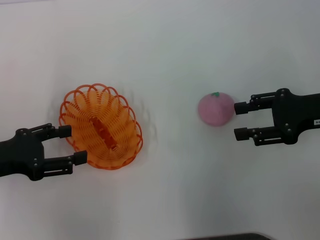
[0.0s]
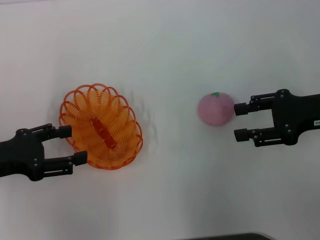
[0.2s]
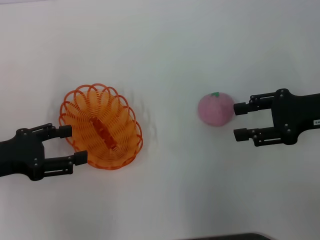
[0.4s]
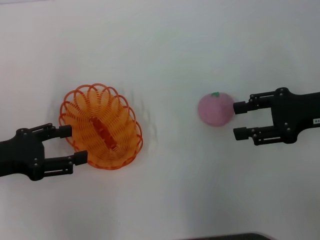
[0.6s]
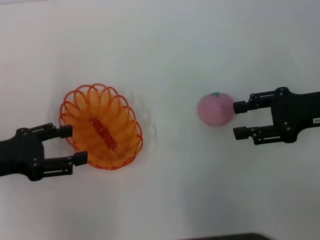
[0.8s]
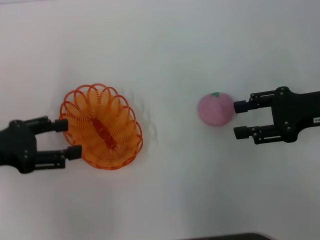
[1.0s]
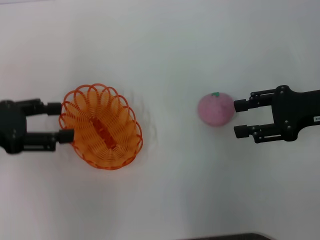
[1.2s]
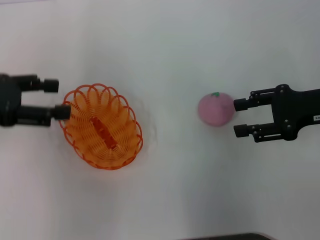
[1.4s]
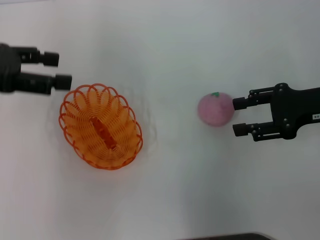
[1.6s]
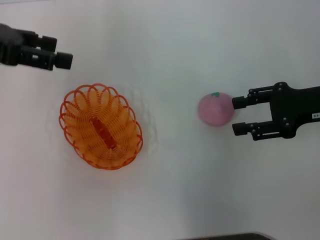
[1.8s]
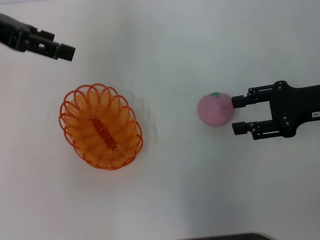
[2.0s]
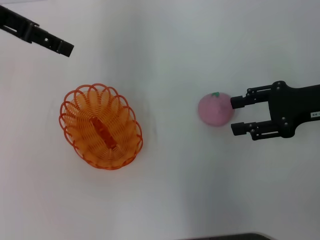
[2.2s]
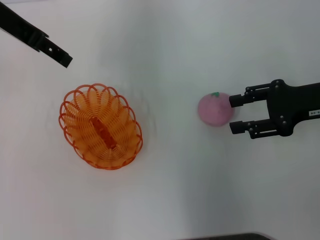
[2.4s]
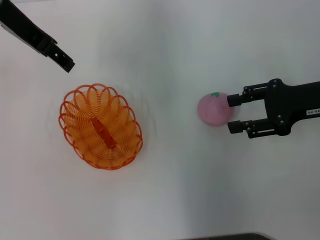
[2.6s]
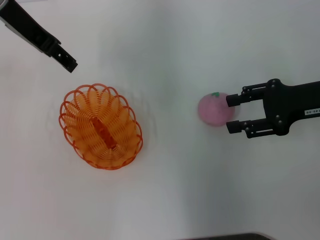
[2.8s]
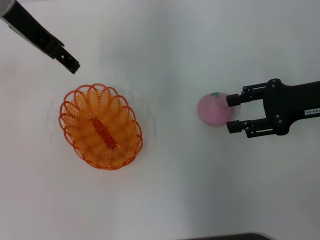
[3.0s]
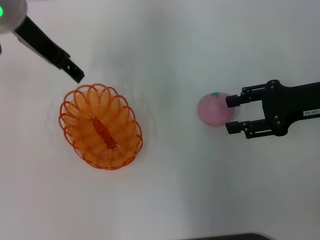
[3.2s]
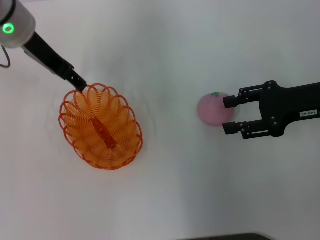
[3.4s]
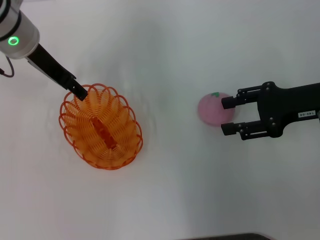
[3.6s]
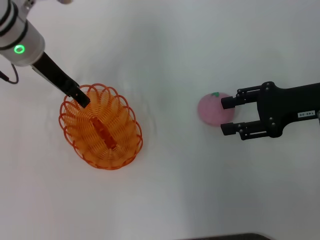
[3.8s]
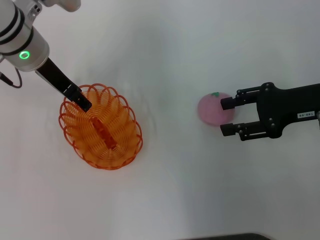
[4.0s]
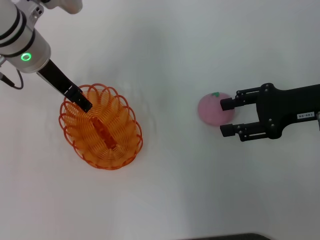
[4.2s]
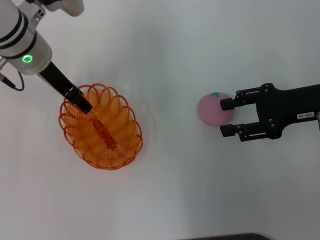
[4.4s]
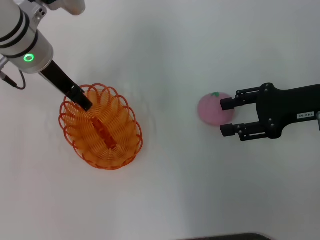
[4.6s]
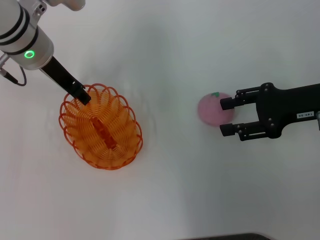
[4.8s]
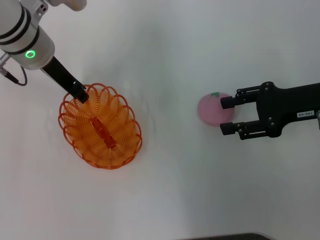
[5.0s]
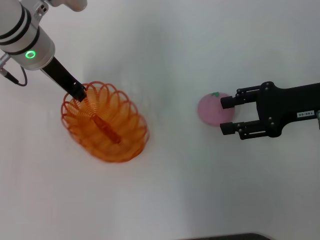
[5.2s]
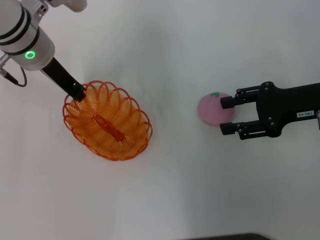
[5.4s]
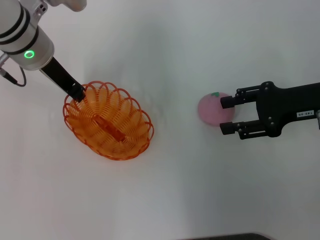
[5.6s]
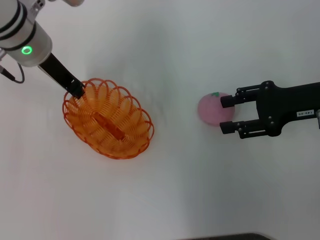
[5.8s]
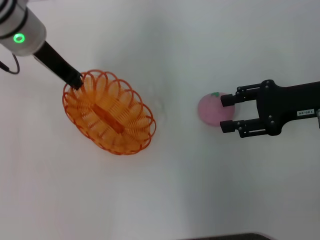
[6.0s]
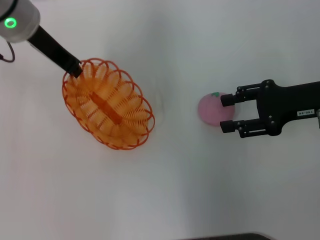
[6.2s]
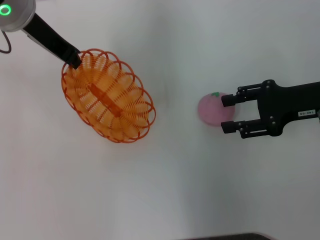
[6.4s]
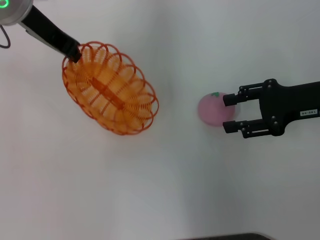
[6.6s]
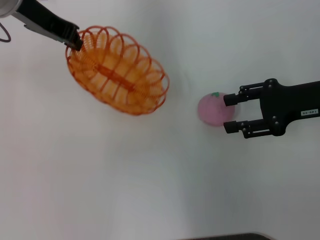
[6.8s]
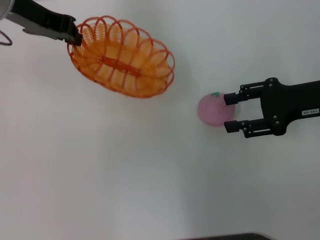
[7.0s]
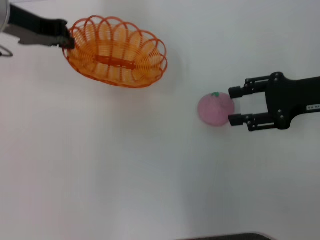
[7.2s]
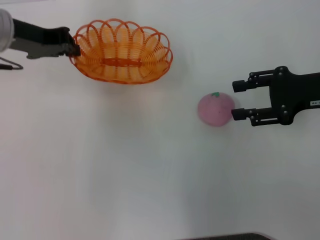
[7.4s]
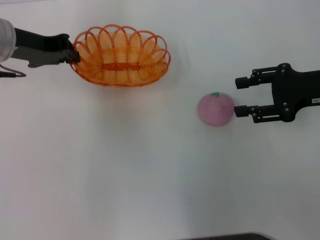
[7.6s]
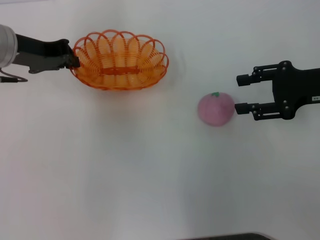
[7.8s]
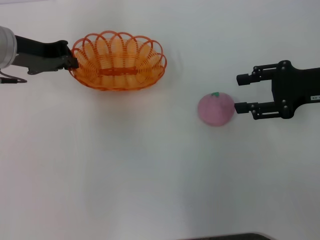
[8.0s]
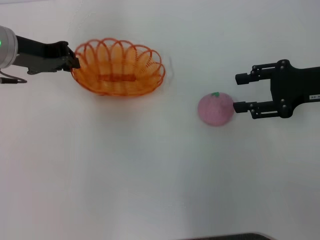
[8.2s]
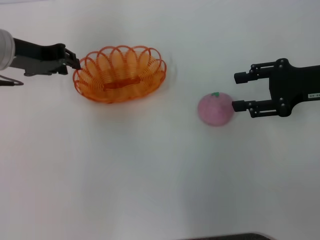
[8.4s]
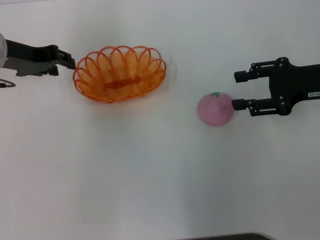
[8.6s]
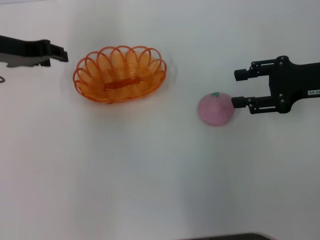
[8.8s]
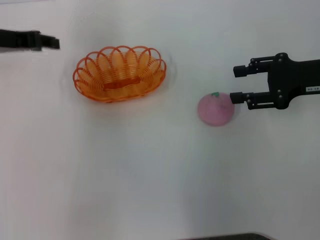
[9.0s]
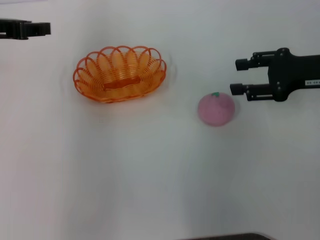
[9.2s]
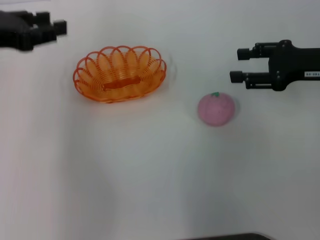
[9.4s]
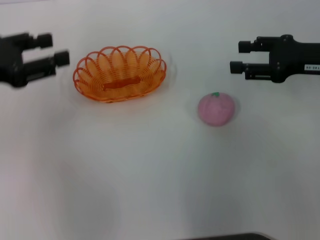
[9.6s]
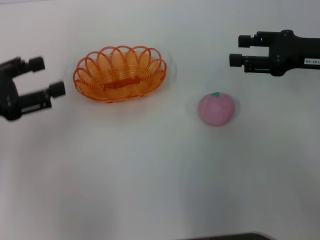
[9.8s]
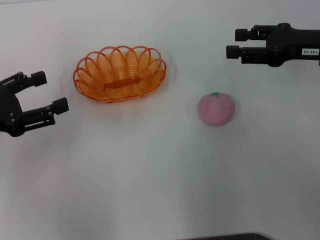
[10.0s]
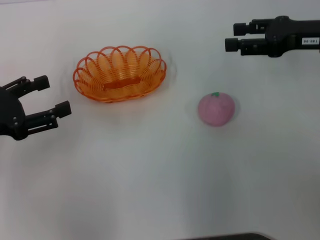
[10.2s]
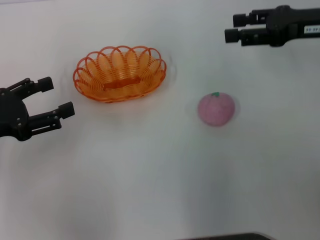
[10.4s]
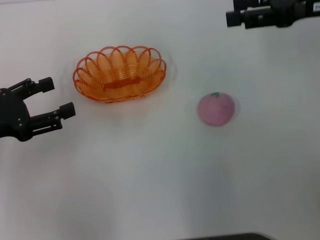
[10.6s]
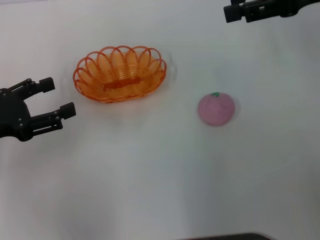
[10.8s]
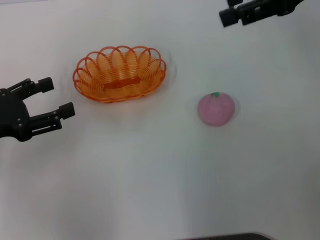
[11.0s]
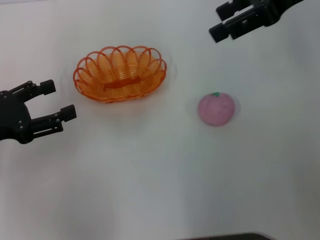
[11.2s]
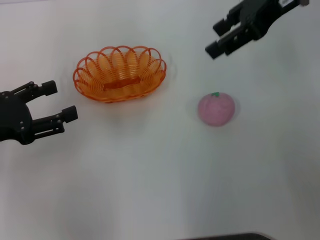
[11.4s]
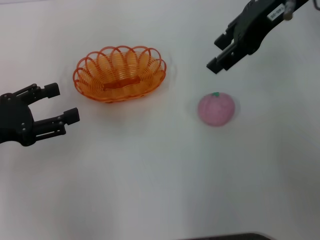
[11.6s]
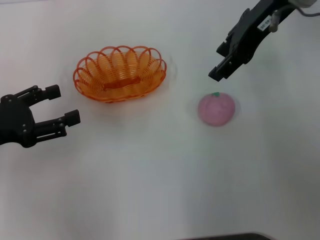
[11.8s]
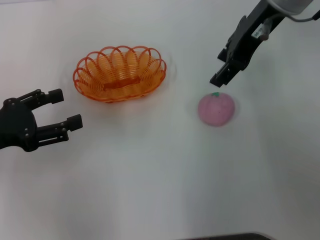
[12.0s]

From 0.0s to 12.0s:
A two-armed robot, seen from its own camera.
Step, from 0.0s to 6.6s: Pick up the basket with the left gripper.
Step, from 6.8s to 8.8s: Place the basket in the center of view with the left gripper.
From 0.0s to 1.6s: The left gripper travels upward and forward by approximately 15 cm.
From 1.6s to 3.0s: The left gripper goes about 15 cm to the right and forward.
From 3.0s to 4.4s: The left gripper travels downward by approximately 10 cm.
From 4.4s to 6.0s: The left gripper closes.
From 6.0s to 7.6s: The left gripper shifts some 5 cm to the left.
From 7.6s to 9.0s: The left gripper opens up.
From 9.0s to 10.4s: The right gripper moves some 5 cm, while the left gripper moves backward and downward, approximately 15 cm, and opens.
From 10.4s to 12.0s: The right gripper goes approximately 15 cm to the left and upward.

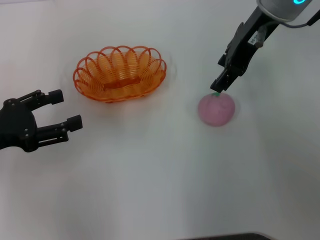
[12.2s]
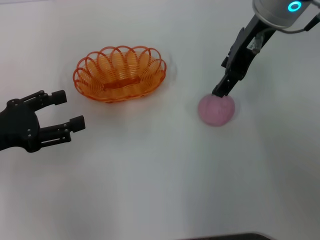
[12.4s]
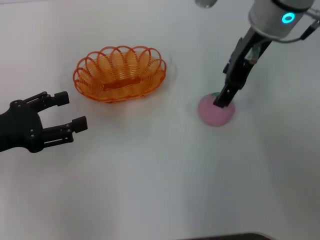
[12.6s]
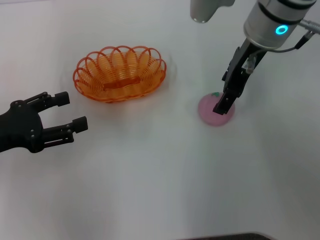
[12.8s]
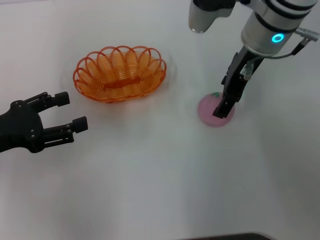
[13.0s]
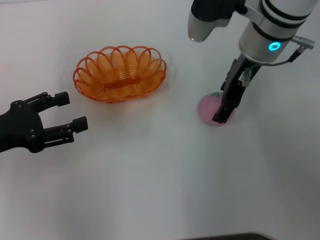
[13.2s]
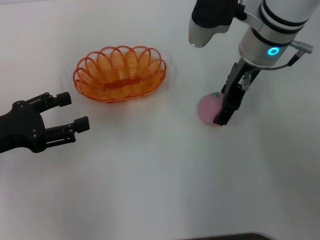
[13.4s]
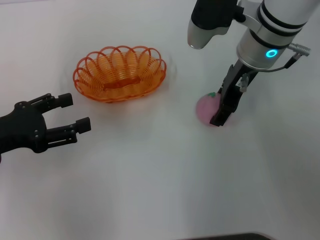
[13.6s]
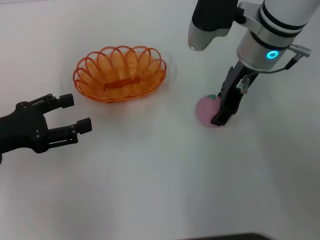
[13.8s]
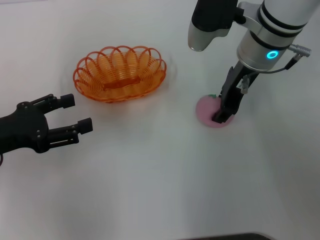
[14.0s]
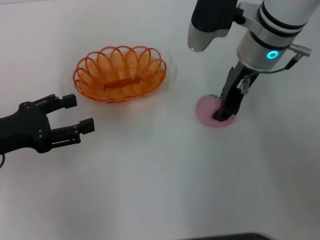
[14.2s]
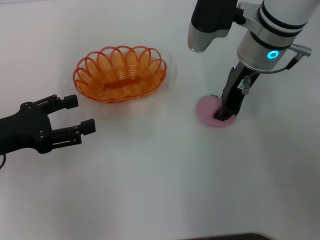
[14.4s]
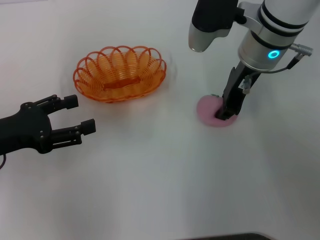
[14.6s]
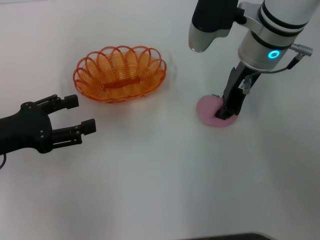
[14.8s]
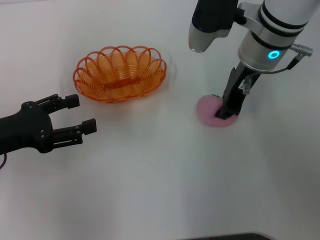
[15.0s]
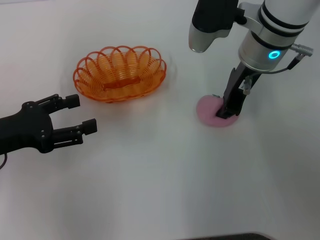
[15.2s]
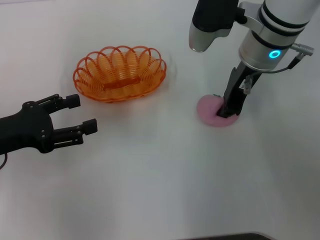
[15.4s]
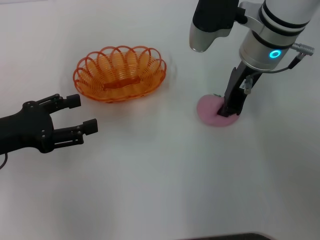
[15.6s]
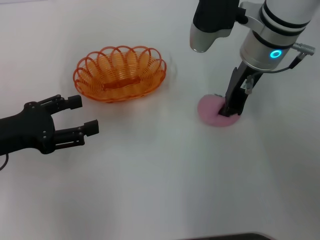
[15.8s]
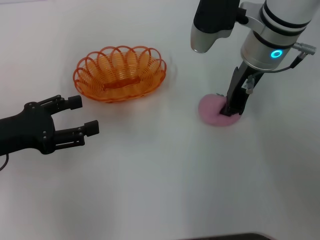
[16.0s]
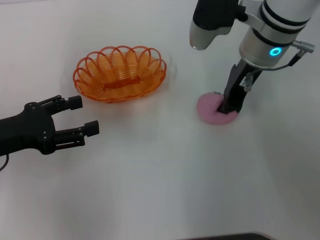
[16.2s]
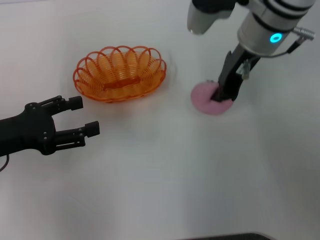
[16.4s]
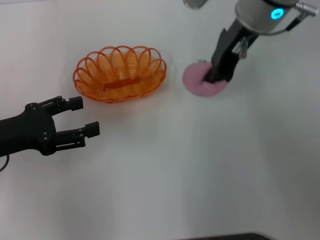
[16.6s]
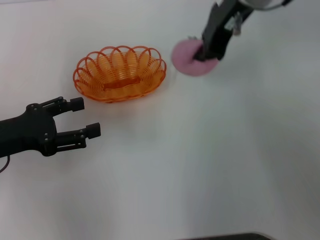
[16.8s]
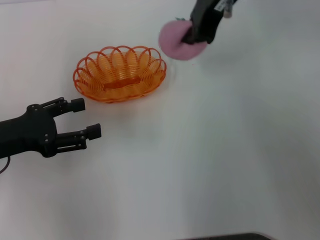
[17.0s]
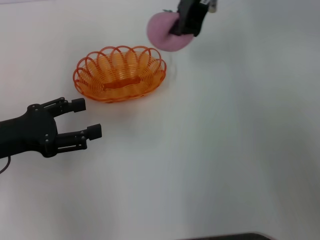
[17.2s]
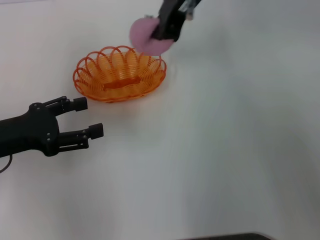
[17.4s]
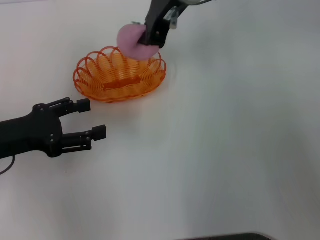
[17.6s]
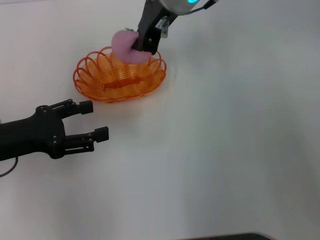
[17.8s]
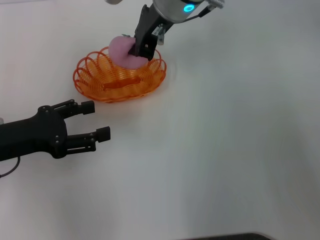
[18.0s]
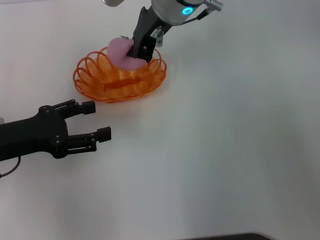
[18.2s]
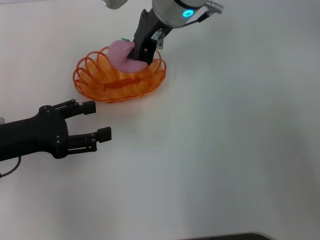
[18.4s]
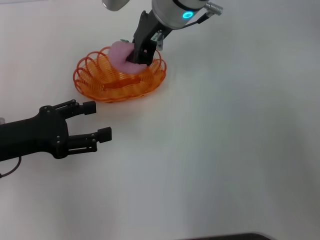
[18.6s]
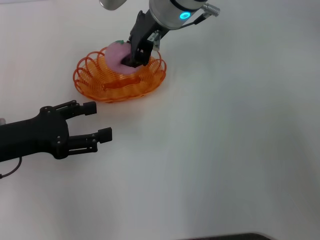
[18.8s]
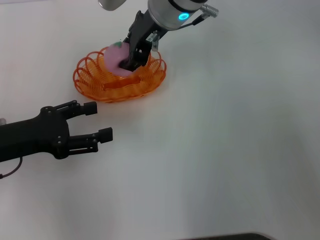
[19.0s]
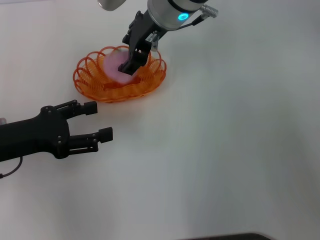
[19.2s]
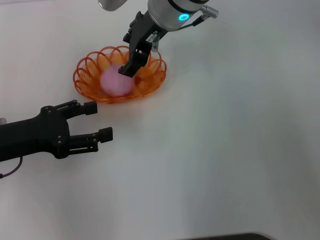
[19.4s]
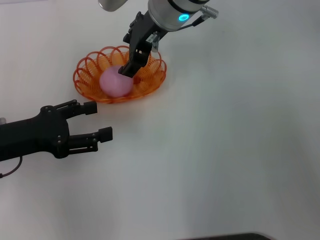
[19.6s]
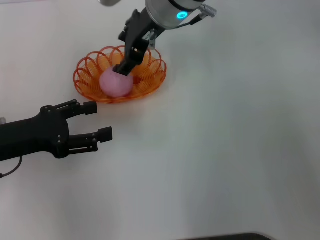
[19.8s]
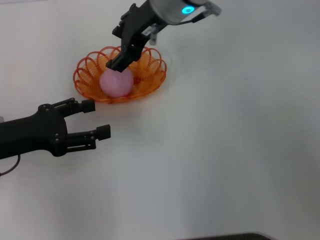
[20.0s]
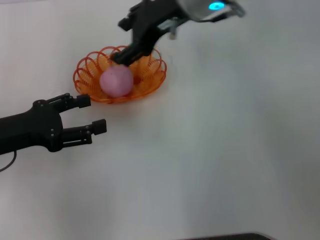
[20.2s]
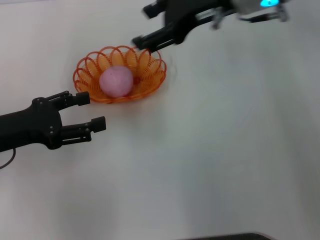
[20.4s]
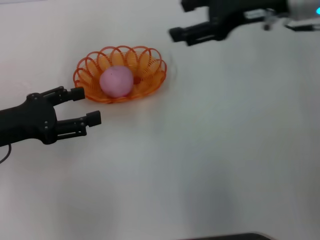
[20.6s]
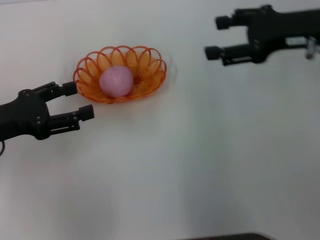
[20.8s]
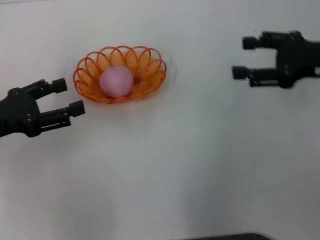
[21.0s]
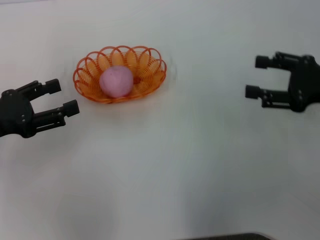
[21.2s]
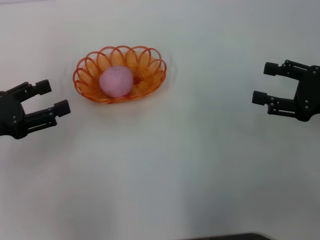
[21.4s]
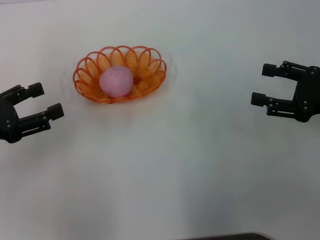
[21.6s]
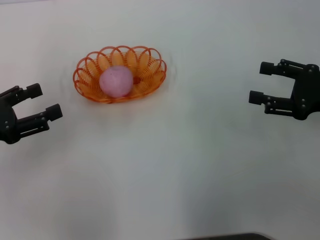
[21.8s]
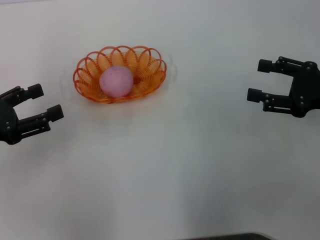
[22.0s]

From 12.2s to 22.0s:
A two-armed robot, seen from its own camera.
Step, from 12.2s to 16.4s: Pick up the peach with the right gripper.
Step, from 16.6s to 20.6s: Place the peach into the basket with the right gripper.
From 12.2s to 13.6s: The right gripper is displaced downward by approximately 10 cm.
From 13.6s to 15.0s: The right gripper closes its fingers.
From 15.0s to 16.4s: The grippers make only small movements.
From 16.4s to 17.8s: The right gripper goes some 10 cm to the left.
From 17.8s to 19.2s: The right gripper opens.
From 19.2s to 20.6s: The right gripper is displaced to the right by roughly 15 cm, and opens its fingers.
From 20.6s to 22.0s: The right gripper goes some 20 cm to the right, downward and backward.
